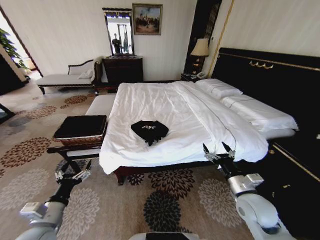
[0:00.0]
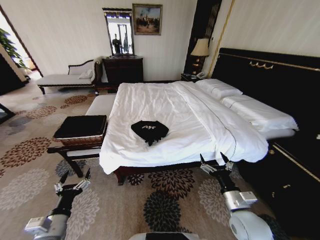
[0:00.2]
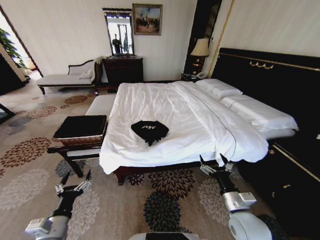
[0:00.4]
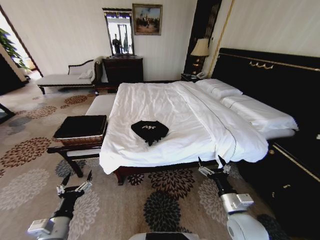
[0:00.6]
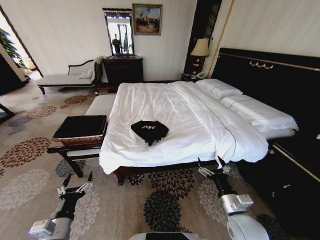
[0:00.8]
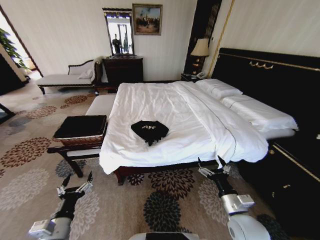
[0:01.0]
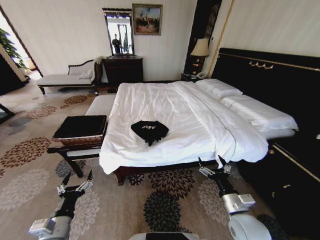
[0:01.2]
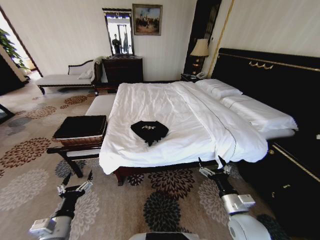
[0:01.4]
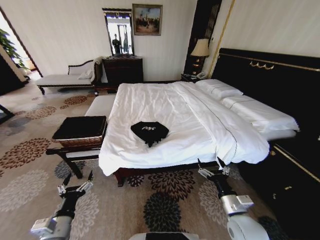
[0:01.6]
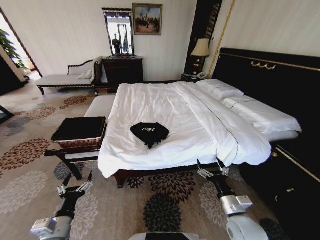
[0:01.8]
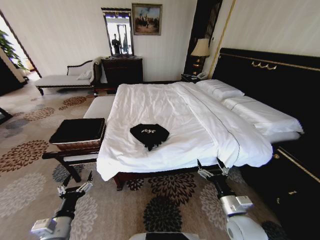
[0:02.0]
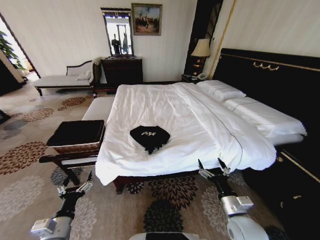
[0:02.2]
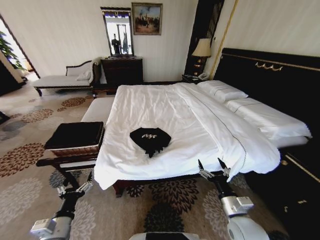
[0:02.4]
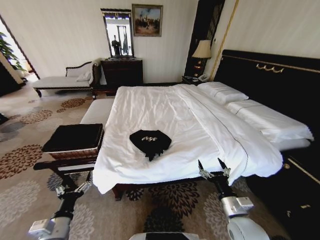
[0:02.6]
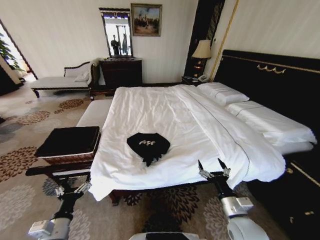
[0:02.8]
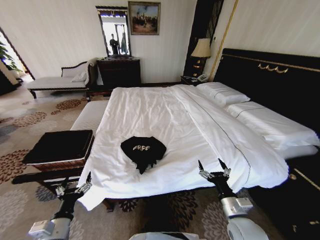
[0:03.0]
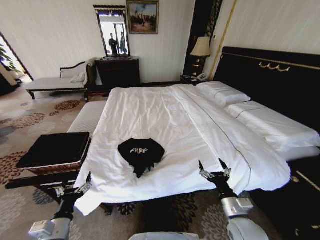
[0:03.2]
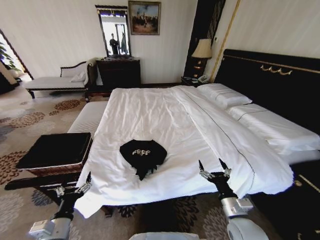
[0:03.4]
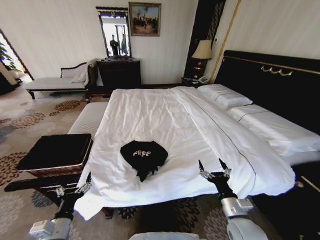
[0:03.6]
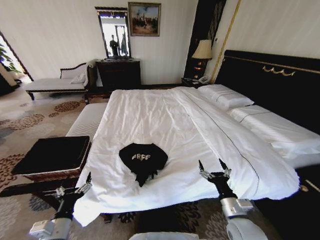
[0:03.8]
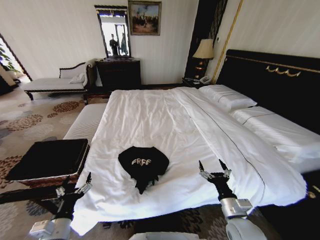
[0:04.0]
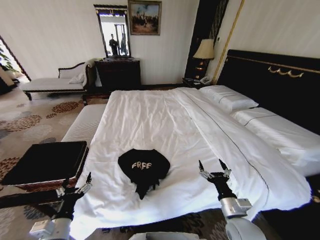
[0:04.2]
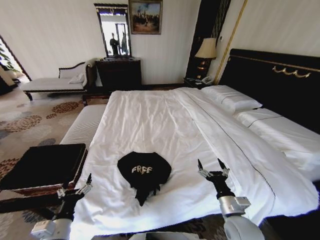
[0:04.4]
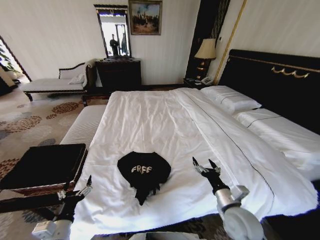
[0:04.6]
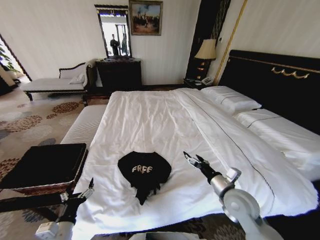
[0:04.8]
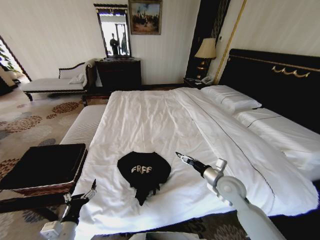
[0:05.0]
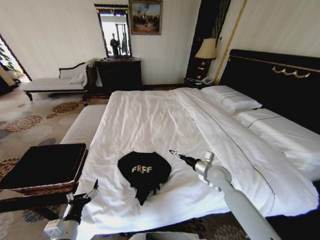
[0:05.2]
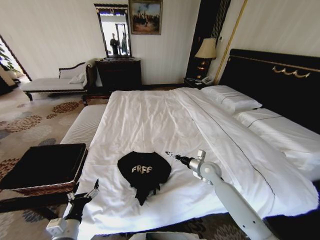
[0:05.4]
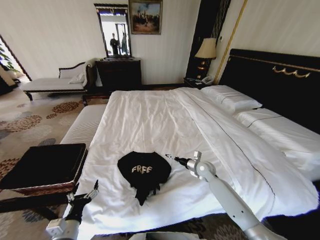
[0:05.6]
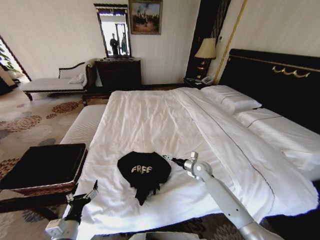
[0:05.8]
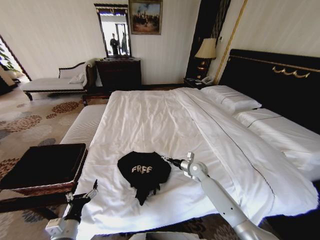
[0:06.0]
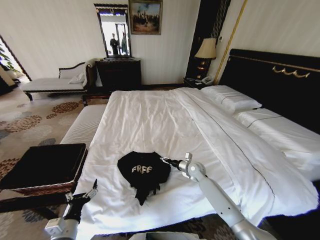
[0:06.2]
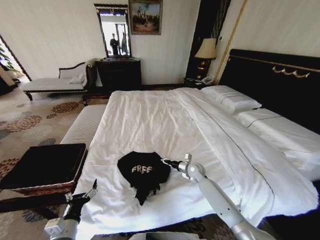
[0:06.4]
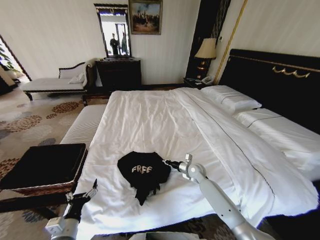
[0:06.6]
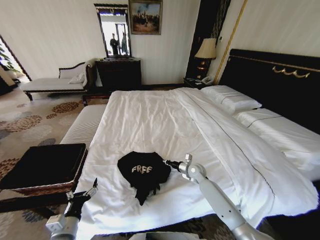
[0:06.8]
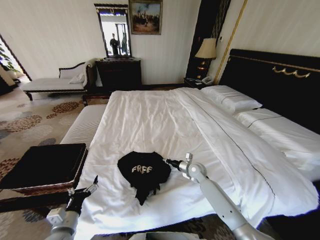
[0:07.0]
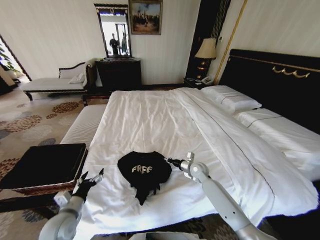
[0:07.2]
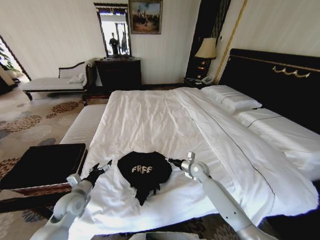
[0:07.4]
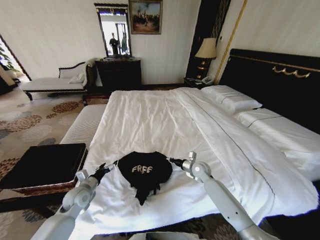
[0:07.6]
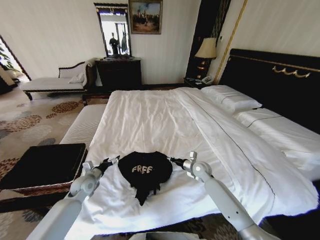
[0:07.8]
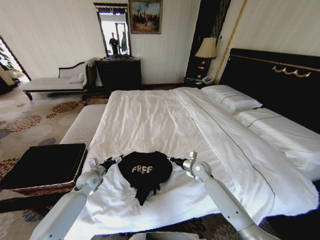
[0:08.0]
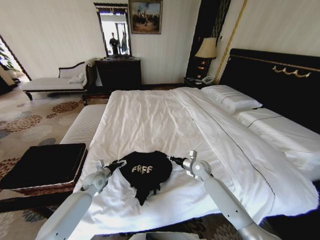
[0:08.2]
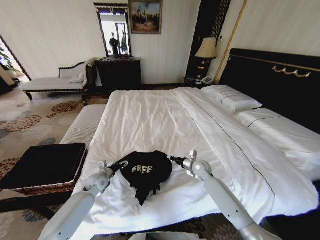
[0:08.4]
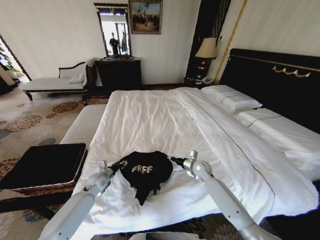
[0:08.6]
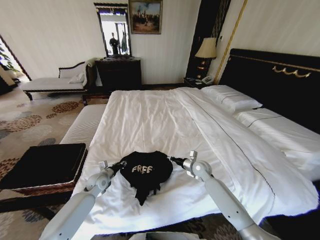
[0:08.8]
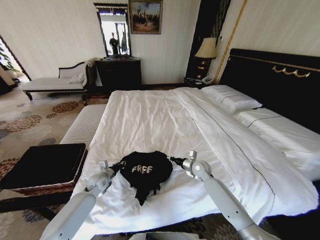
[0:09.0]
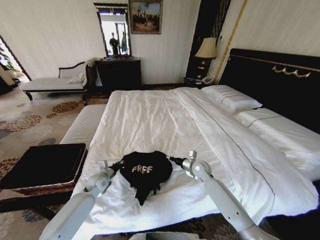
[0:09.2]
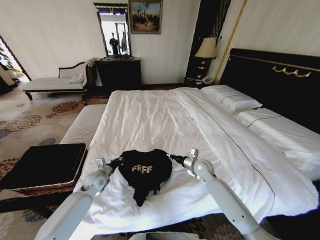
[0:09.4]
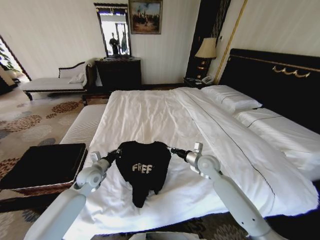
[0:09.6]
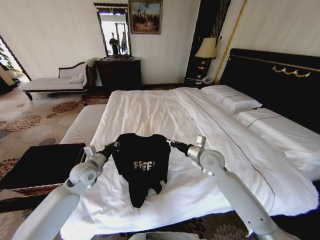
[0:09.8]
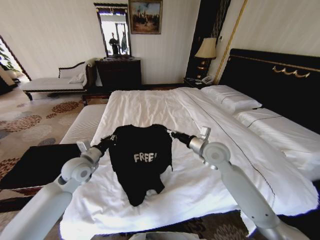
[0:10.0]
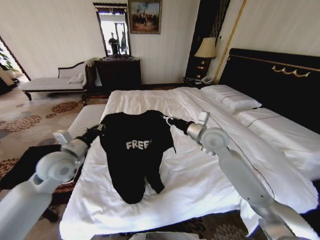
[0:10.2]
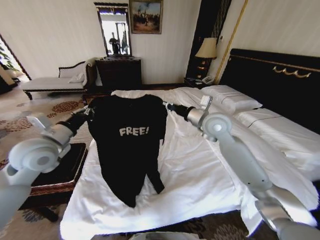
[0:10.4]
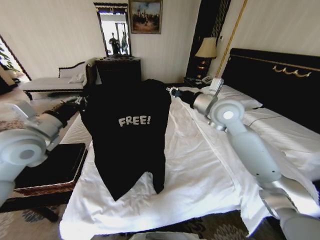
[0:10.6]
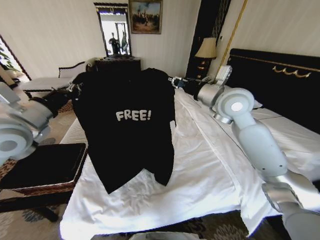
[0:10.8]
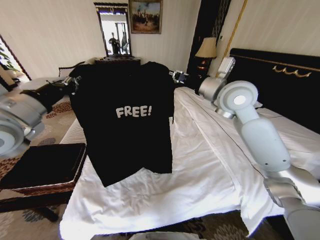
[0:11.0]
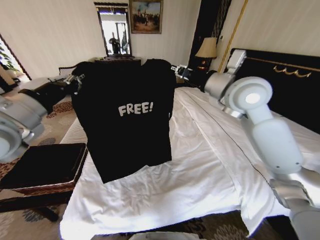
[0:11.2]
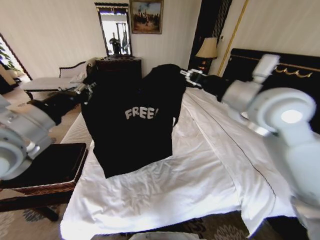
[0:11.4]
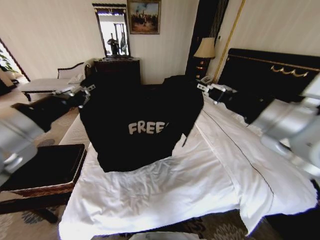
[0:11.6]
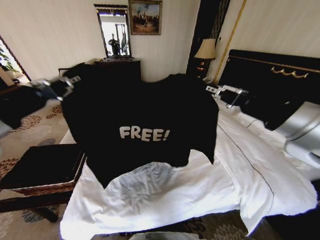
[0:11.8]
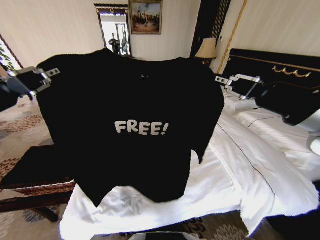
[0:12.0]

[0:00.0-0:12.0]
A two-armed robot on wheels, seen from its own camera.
Task of the whole recording: Fold the clothes on the bed and place them into the basket.
0:04.4 to 0:06.0: The right gripper goes about 25 cm forward.
0:06.0 to 0:07.6: The left gripper moves forward, some 20 cm. Meanwhile the right gripper closes its fingers.
0:07.6 to 0:09.0: The left gripper heads forward, covering roughly 5 cm, and closes its fingers.
0:09.0 to 0:10.4: The two grippers go some 30 cm upward.
0:10.4 to 0:12.0: The right gripper heads backward and upward, covering approximately 25 cm. Meanwhile the left gripper travels upward and backward by roughly 25 cm.

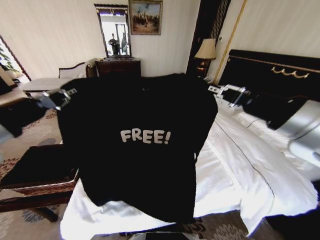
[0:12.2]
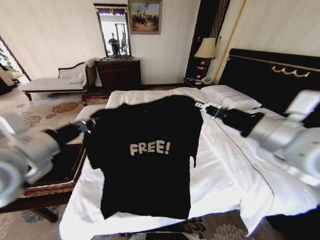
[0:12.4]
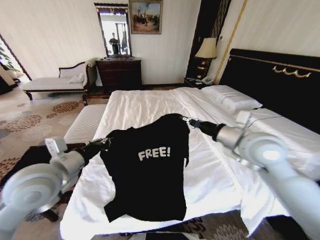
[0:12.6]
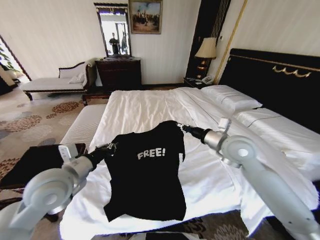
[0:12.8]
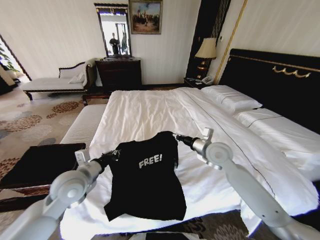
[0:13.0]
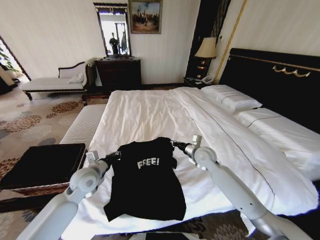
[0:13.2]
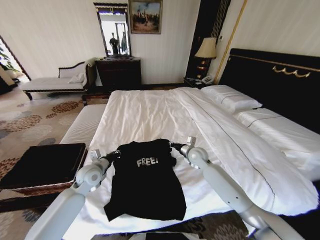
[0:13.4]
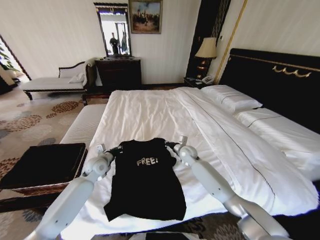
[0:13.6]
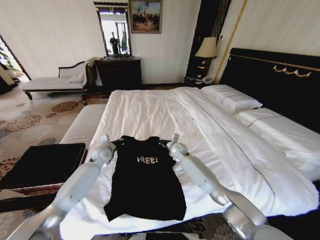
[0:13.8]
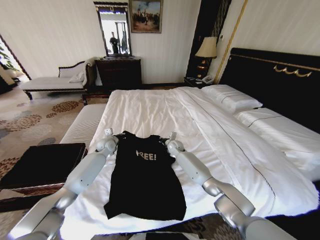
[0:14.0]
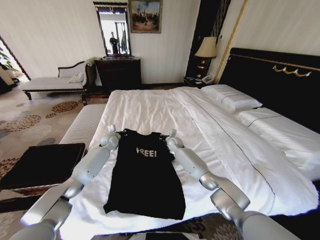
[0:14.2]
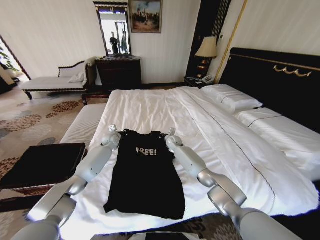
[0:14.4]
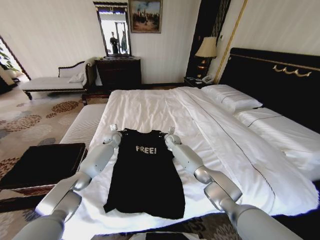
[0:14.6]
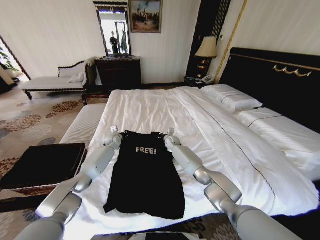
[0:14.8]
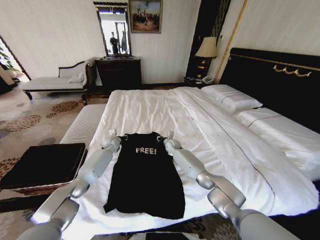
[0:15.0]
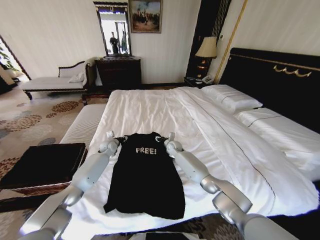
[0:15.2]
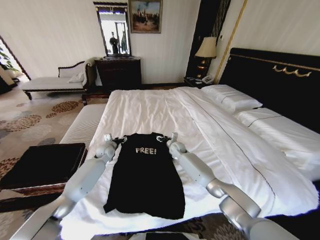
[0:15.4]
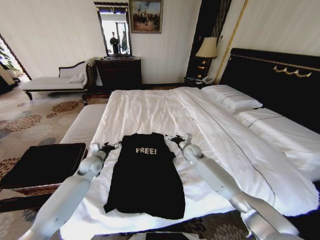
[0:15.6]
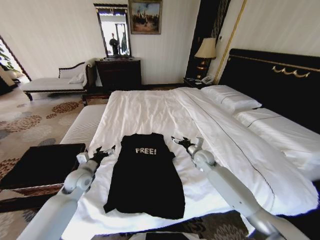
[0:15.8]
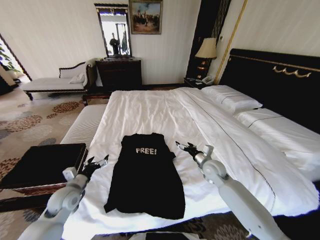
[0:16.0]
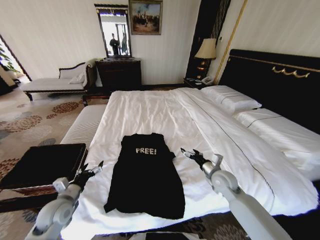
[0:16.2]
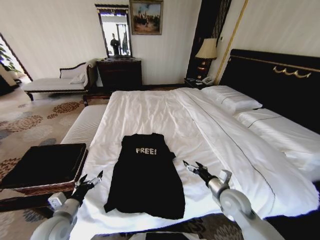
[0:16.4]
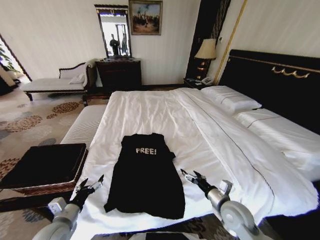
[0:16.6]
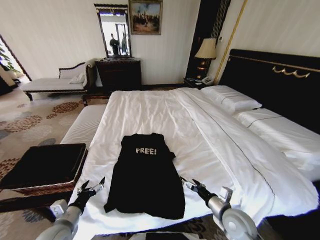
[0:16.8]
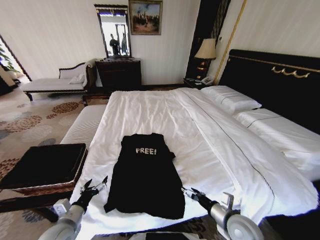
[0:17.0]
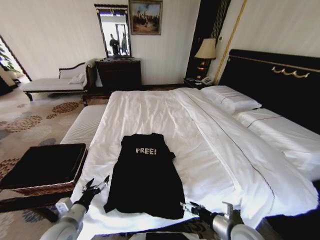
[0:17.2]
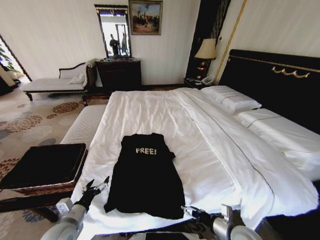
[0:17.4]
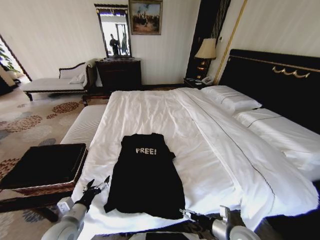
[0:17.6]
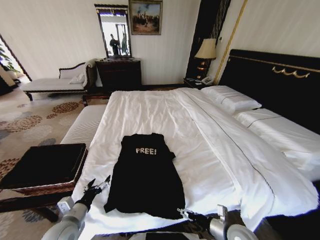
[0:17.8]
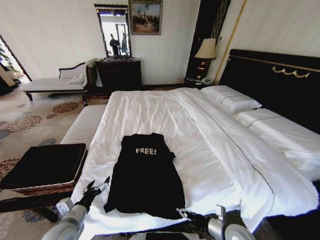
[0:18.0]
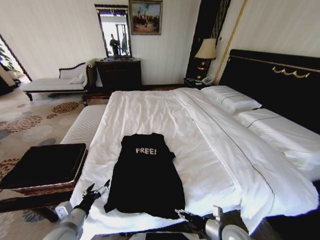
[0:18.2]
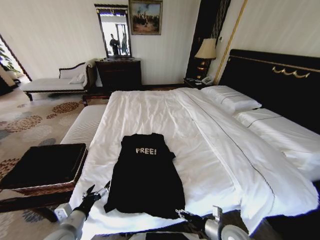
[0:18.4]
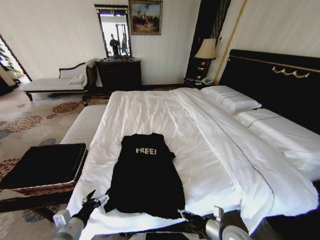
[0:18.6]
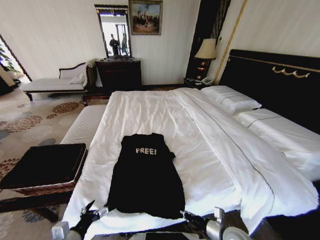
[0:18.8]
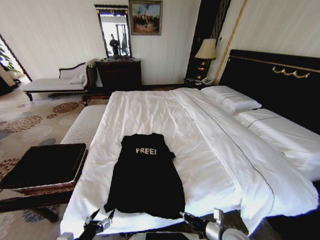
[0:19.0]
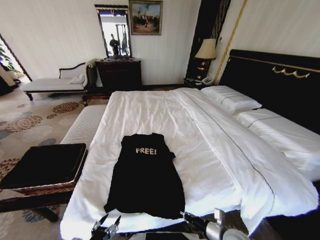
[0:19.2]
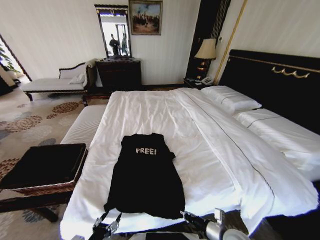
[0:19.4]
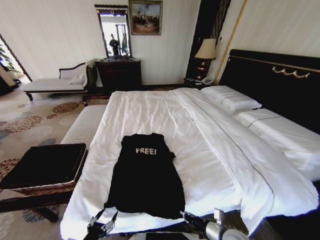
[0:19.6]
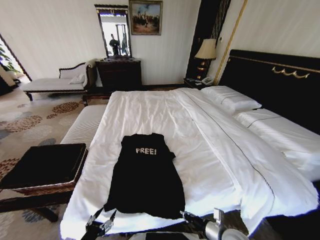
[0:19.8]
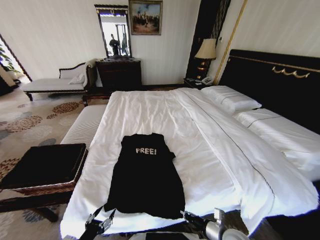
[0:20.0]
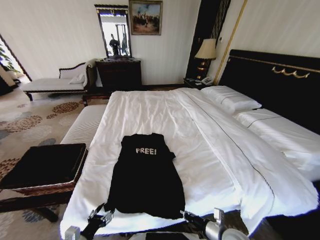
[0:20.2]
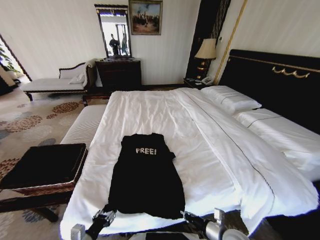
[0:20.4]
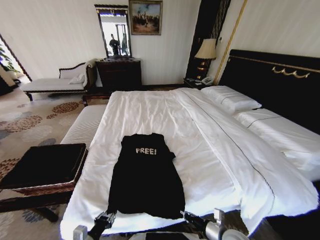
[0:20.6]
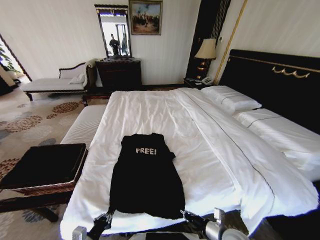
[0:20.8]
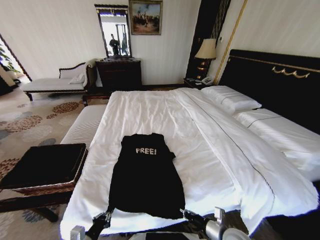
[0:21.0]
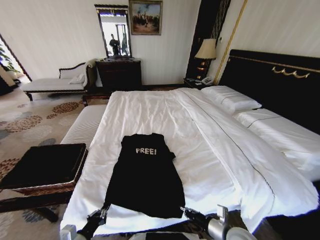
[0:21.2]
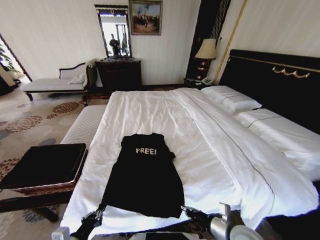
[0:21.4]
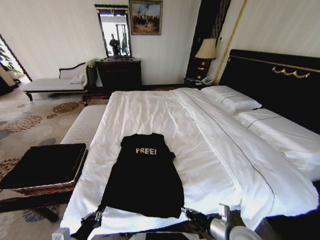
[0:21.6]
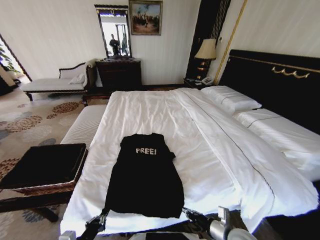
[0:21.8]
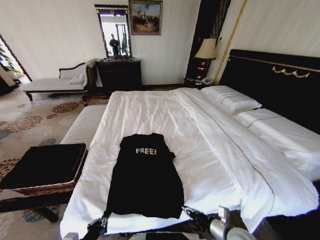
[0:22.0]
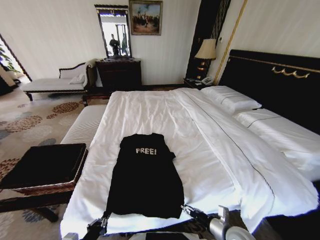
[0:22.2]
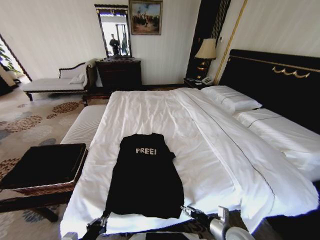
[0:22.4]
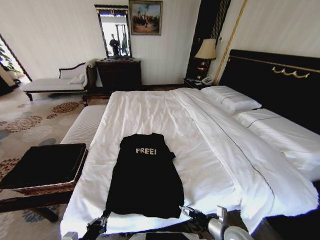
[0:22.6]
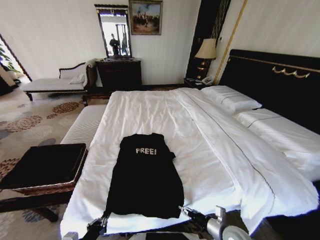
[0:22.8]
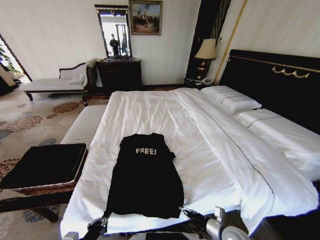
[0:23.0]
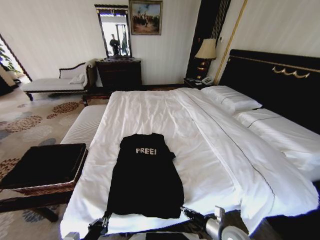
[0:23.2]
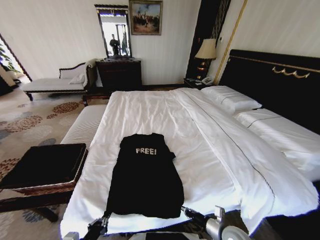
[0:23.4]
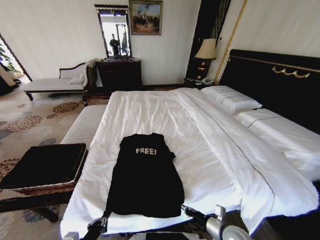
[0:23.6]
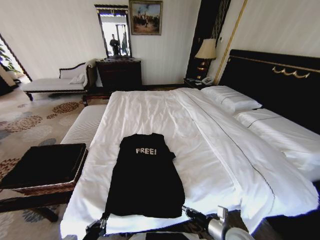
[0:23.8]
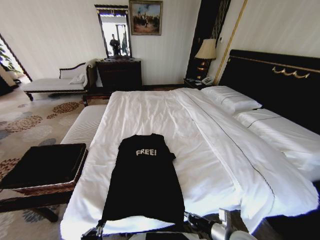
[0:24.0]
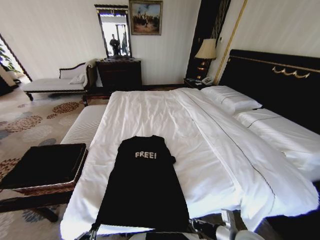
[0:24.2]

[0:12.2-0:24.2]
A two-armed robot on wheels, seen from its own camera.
Task of the whole recording: Fold the clothes on the bed and place them into the basket.
0:12.2 to 0:13.8: Both grippers move downward and forward, some 50 cm.
0:13.8 to 0:15.2: The left gripper moves forward, roughly 10 cm, and opens its fingers, while the right gripper heads forward, covering approximately 5 cm, and opens up.
0:15.2 to 0:16.6: The right gripper is displaced backward and to the right by about 40 cm, and opens its fingers. Meanwhile the left gripper goes approximately 40 cm backward, and opens its fingers.
0:16.6 to 0:18.2: The right gripper goes approximately 10 cm backward and downward.
0:18.2 to 0:19.8: The right gripper closes up; the left gripper heads backward, covering approximately 10 cm.
0:19.8 to 0:21.2: The left gripper closes.
0:21.2 to 0:22.6: The right gripper shifts by about 5 cm, and opens its fingers.
0:22.6 to 0:24.2: The right gripper is displaced upward by roughly 5 cm, and closes its fingers.
